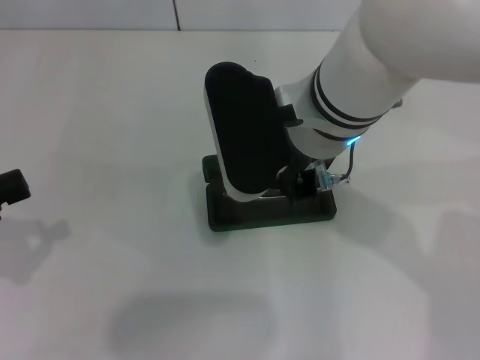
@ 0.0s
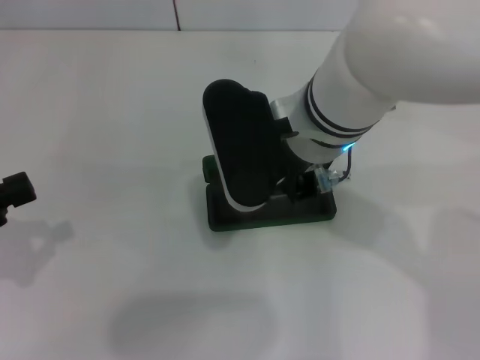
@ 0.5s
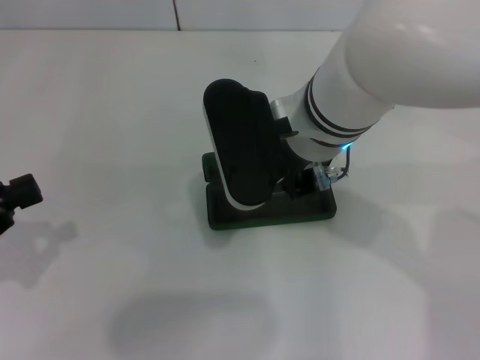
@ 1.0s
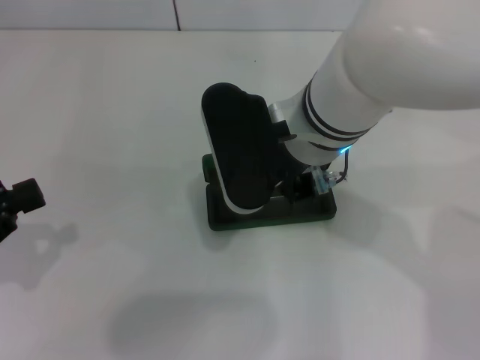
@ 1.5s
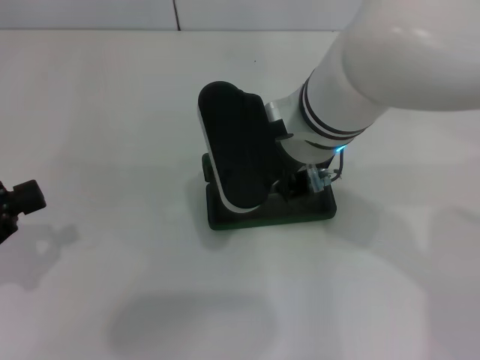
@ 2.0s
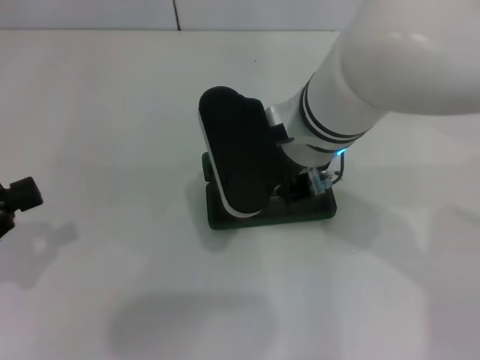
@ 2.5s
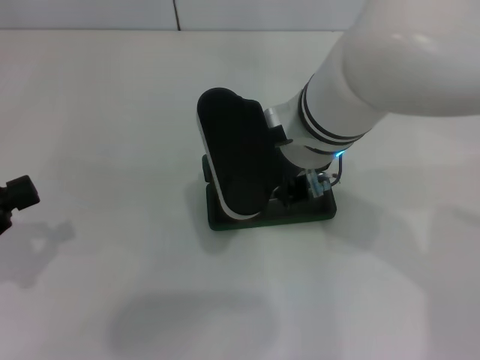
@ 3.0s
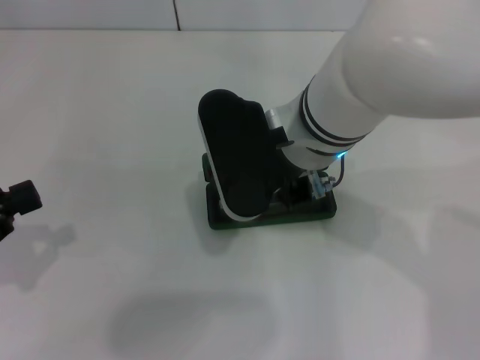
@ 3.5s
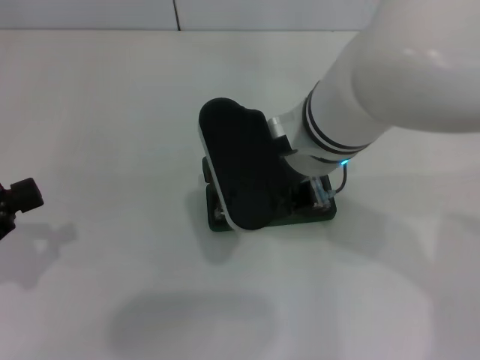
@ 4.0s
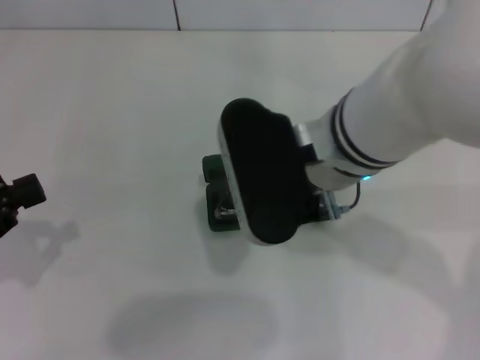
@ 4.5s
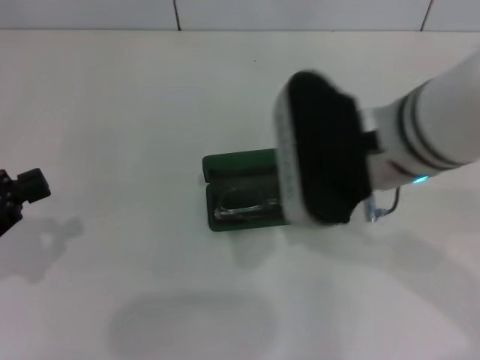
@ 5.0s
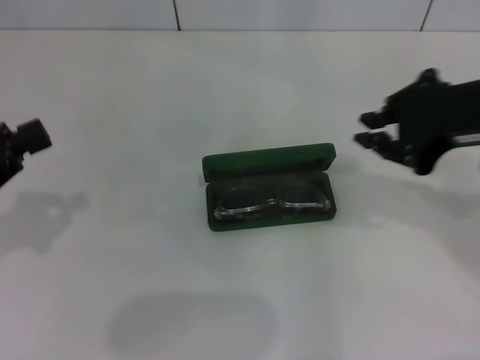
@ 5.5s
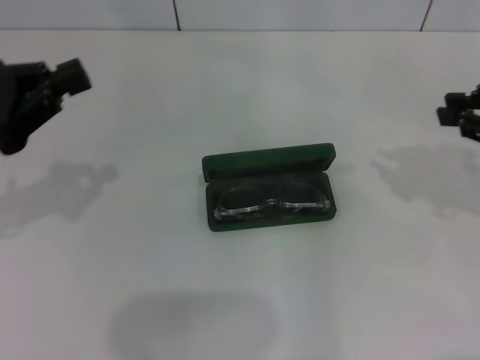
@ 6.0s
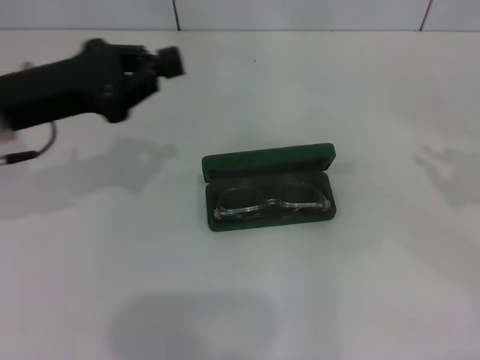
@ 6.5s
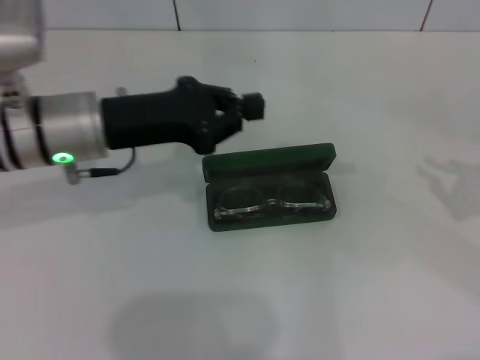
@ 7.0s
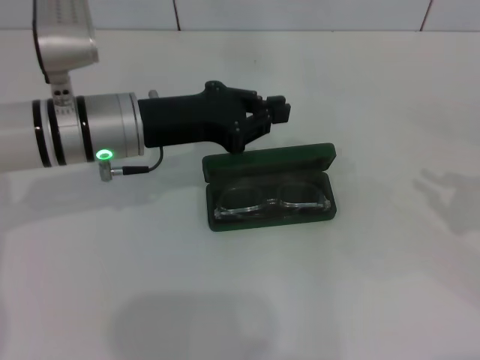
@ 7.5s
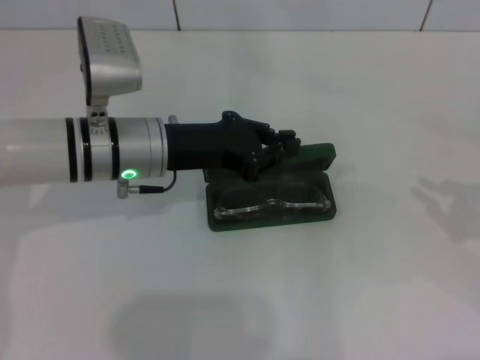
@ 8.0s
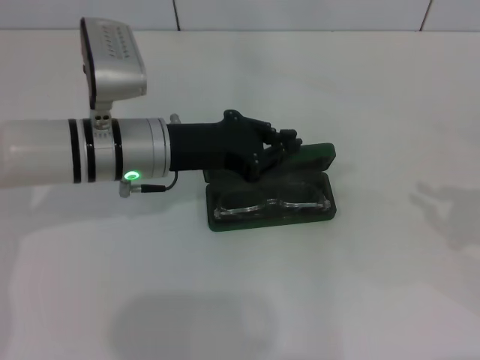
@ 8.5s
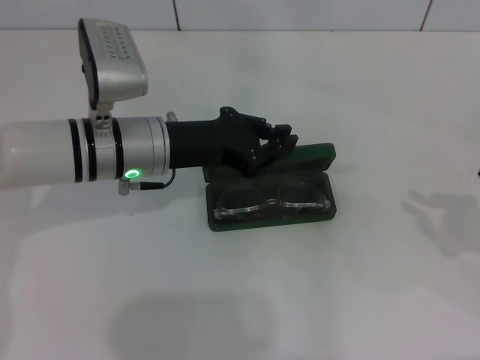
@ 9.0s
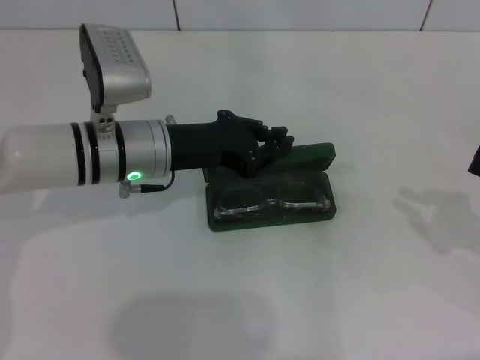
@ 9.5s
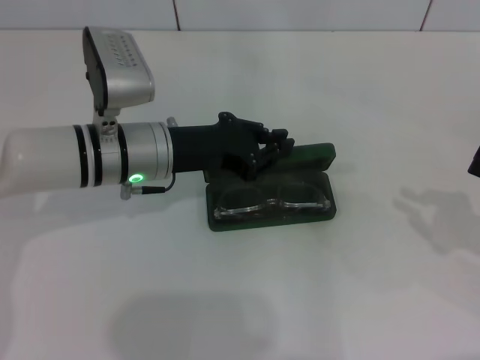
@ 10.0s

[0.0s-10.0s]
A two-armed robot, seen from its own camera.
Step, 0.0s to 4.0s: Put the glasses into the case with your right hand.
0.0s to 2.0s: There are only small adjustments of the grippers.
2.0s to 4.0s: Neither gripper changes place.
4.0s to 6.0s: The left gripper heads forward, covering about 5 cm. Meanwhile the right gripper is displaced to the right by about 30 cm.
6.0s to 8.0s: The left gripper is displaced to the right and forward by roughly 20 cm. The right gripper goes some 15 cm downward, to the right and backward.
8.0s to 10.0s: The grippers stay close to where they were, moving slightly.

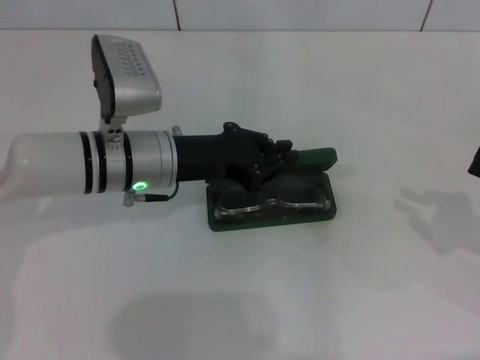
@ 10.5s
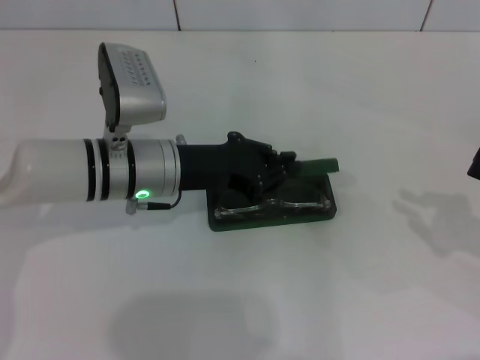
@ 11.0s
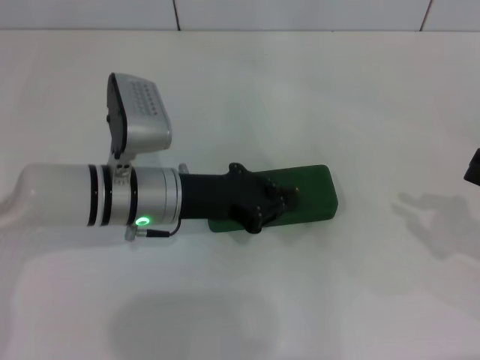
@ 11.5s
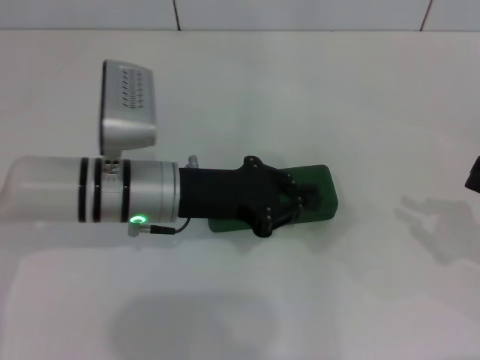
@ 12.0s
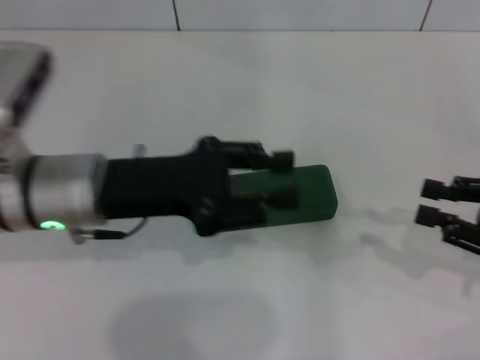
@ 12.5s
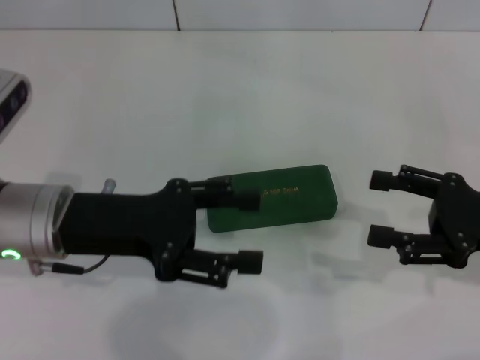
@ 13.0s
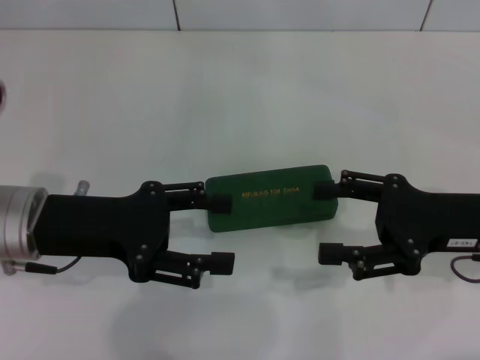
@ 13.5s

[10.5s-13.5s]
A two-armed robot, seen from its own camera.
10.5s to 12.0s: The grippers stay close to where they were, moving slightly.
12.0s to 13.5s: The two grippers go about 10 cm to the left. The right gripper opens its fingers; the left gripper opens up.

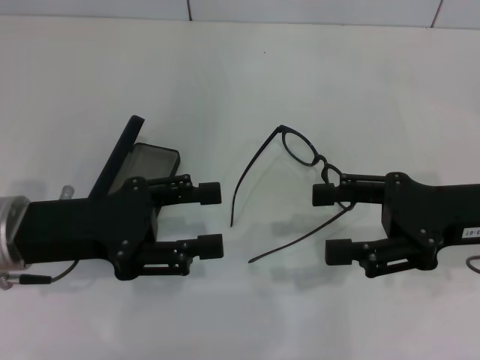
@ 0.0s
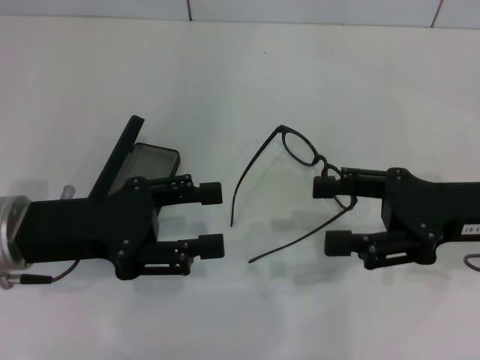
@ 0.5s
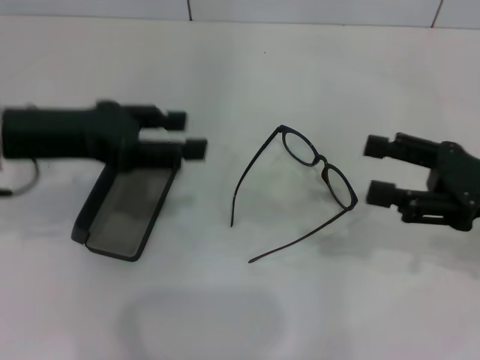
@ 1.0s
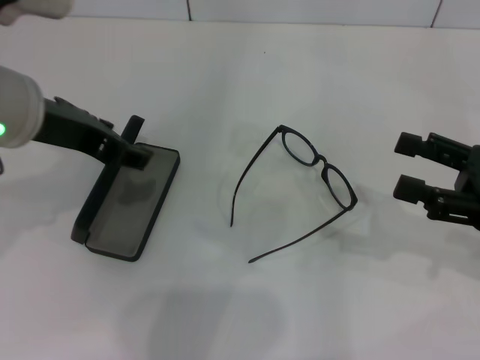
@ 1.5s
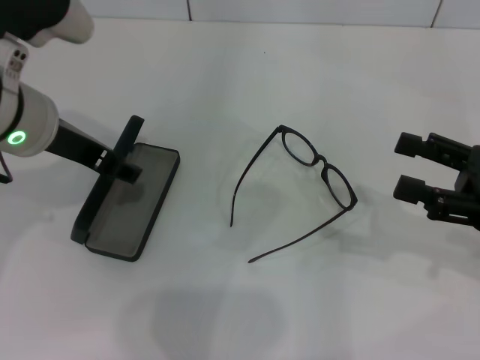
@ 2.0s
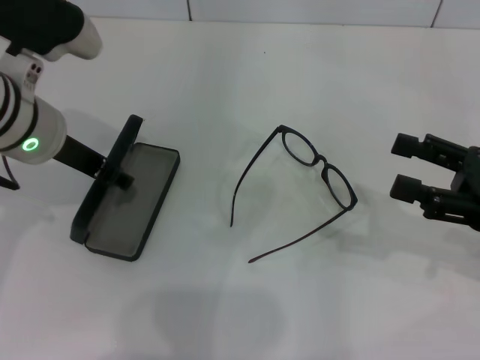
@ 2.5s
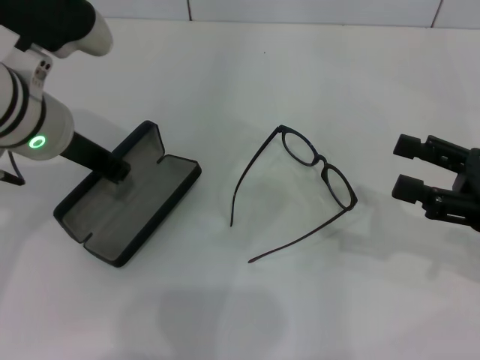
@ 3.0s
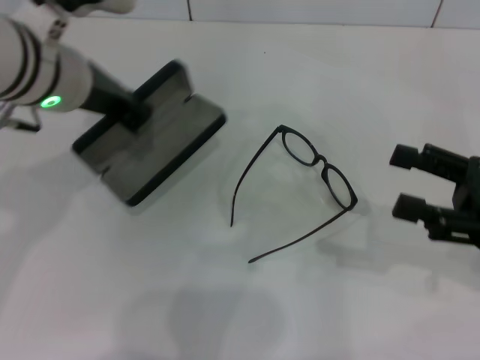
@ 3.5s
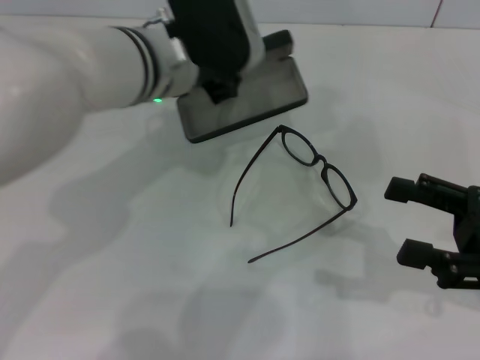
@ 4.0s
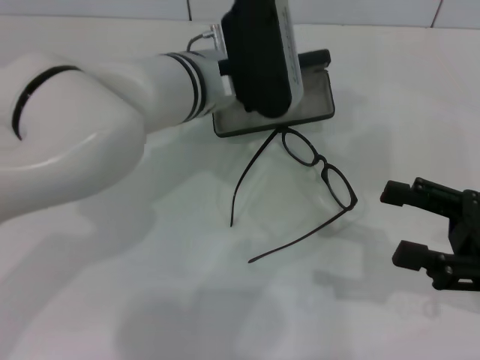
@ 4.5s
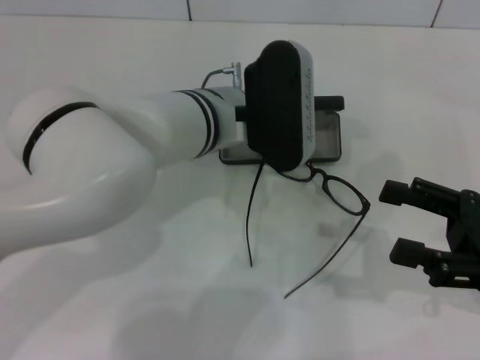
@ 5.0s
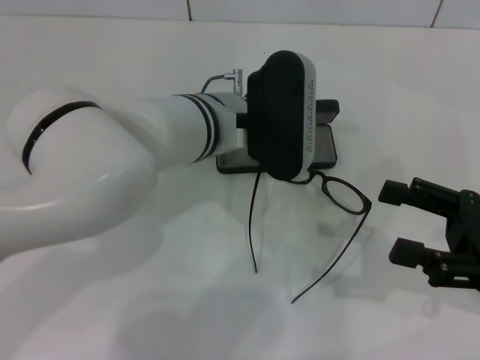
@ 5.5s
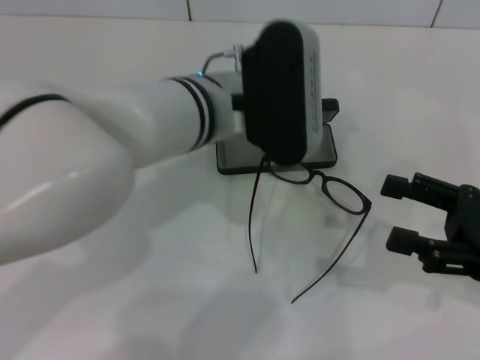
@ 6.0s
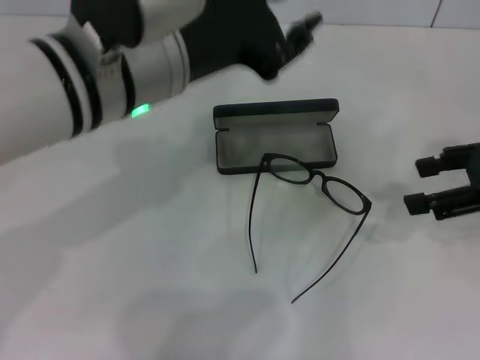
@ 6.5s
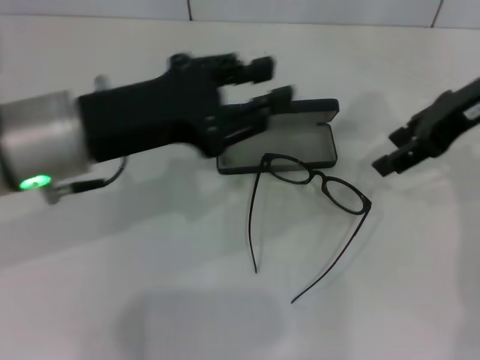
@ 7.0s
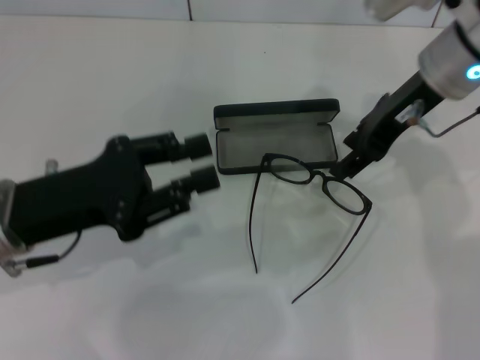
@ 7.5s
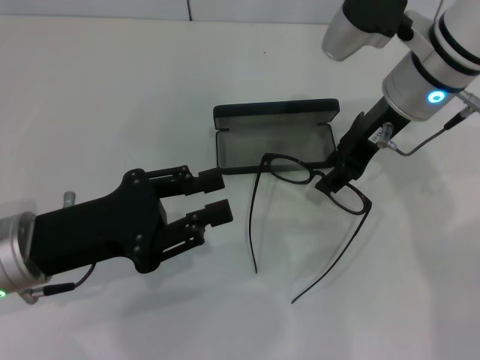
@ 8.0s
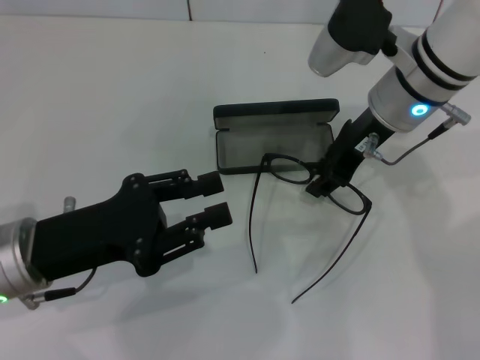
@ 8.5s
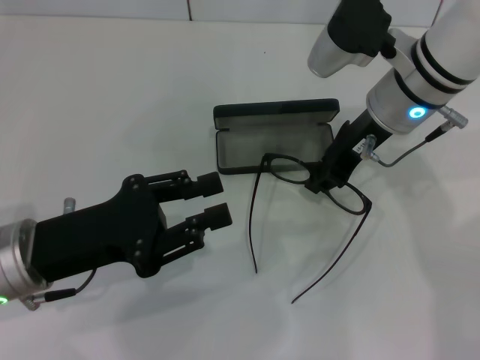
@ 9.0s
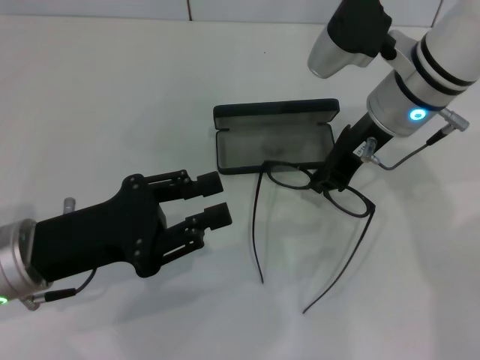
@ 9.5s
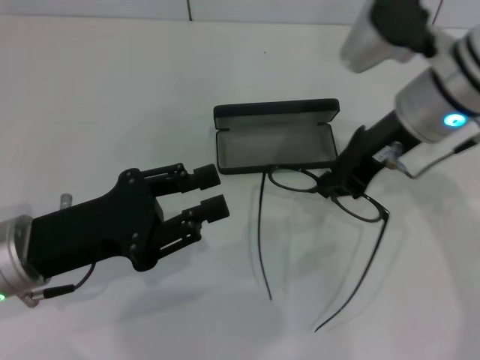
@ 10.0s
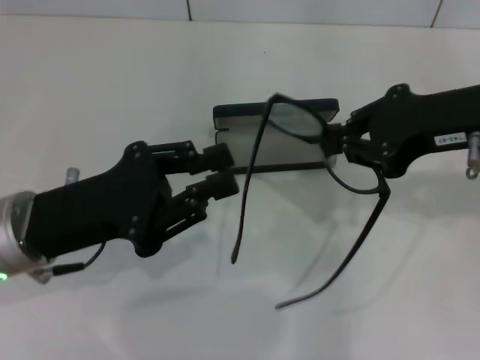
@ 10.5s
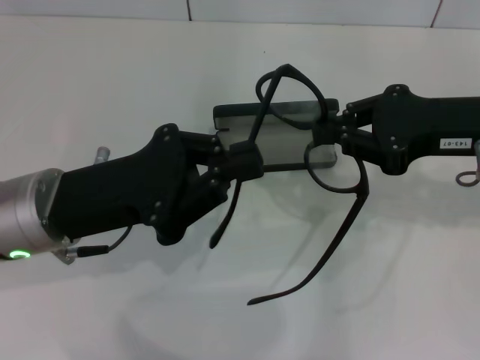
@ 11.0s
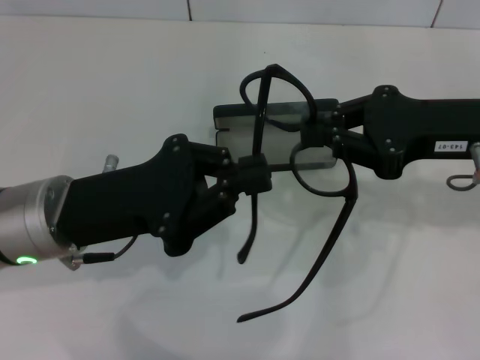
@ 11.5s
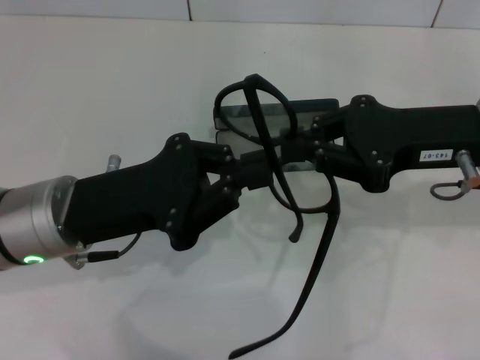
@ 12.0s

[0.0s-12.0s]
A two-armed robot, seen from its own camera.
Step, 0.0s to 2.5s: Grab the glasses case with your left hand.
Step, 3.0s to 5.5s: Place the glasses case in the center of the table with your left hand.
Step, 6.0s to 9.5s: Grab the eyeglass frame with your right hand.
0.0s to 2.0s: The right gripper is displaced to the right by some 5 cm, while the left gripper moves upward and forward, about 10 cm.
2.0s to 4.0s: The left gripper is displaced to the right by some 10 cm, and closes its fingers.
4.0s to 6.0s: The left gripper shifts by some 5 cm.
6.0s to 8.0s: The left gripper is displaced to the left and backward by approximately 20 cm; the right gripper travels forward, to the left and upward by approximately 25 cm.
8.0s to 10.0s: The right gripper closes its fingers.
10.0s to 12.0s: The left gripper moves approximately 5 cm, and closes its fingers; the right gripper shifts about 10 cm to the right and backward.
